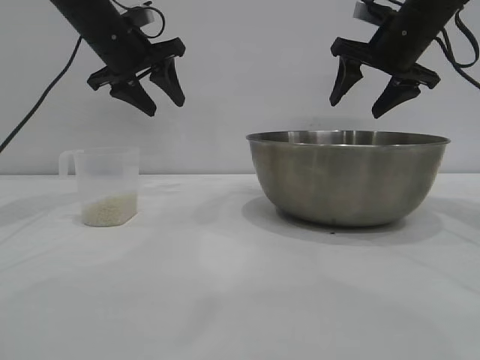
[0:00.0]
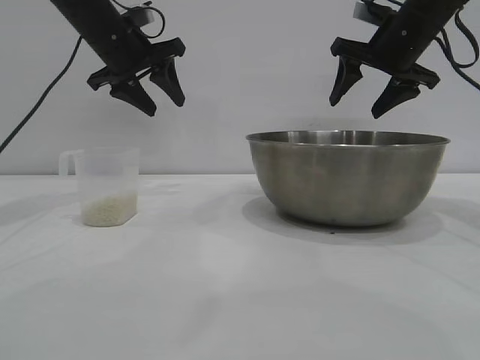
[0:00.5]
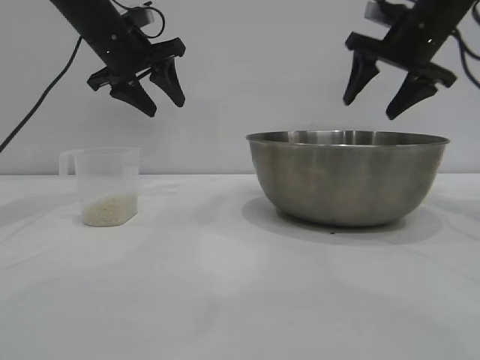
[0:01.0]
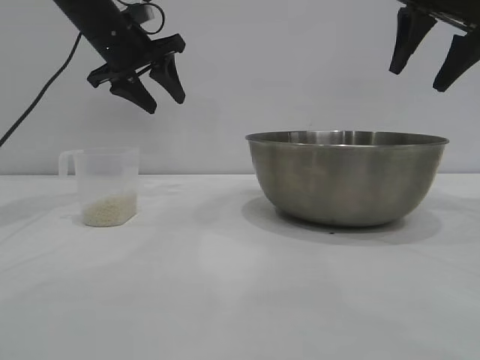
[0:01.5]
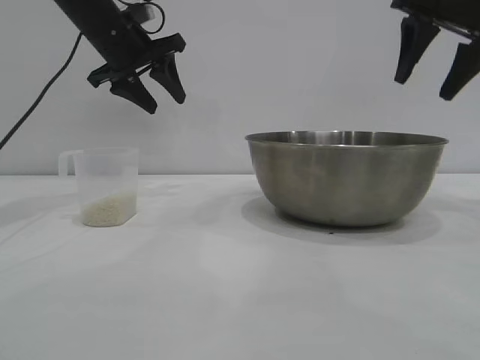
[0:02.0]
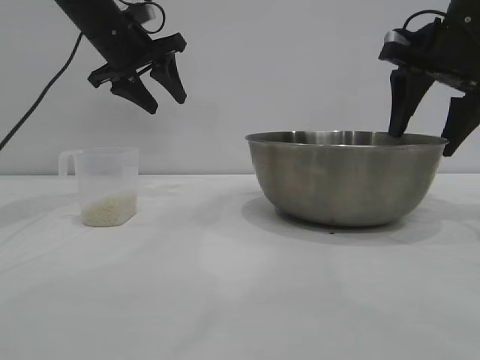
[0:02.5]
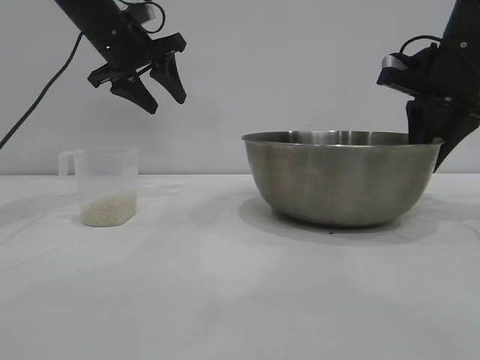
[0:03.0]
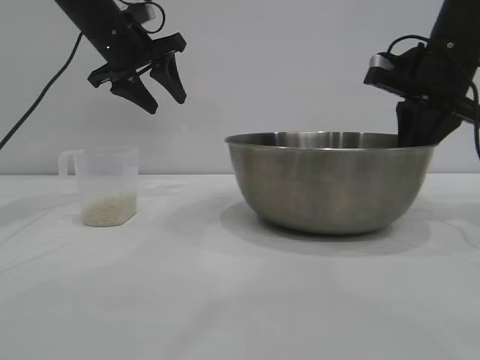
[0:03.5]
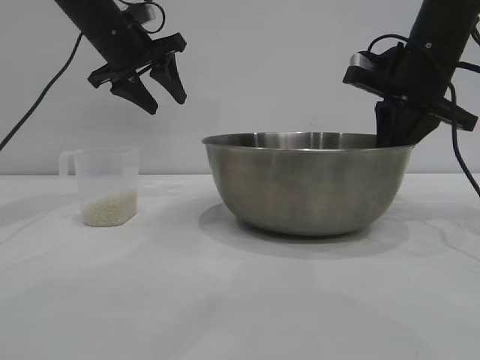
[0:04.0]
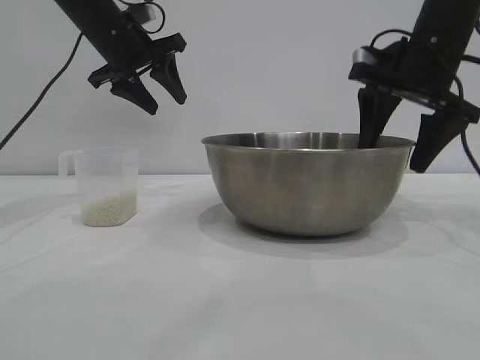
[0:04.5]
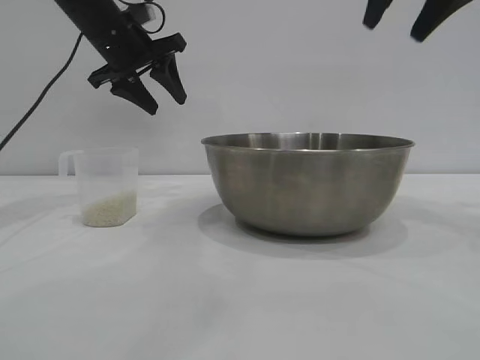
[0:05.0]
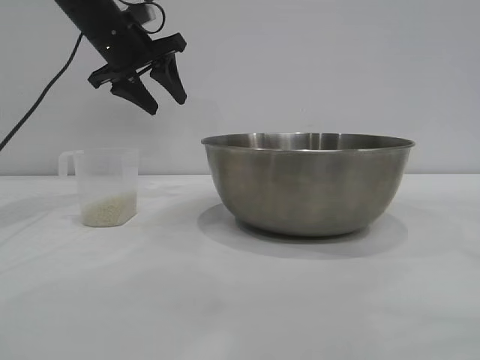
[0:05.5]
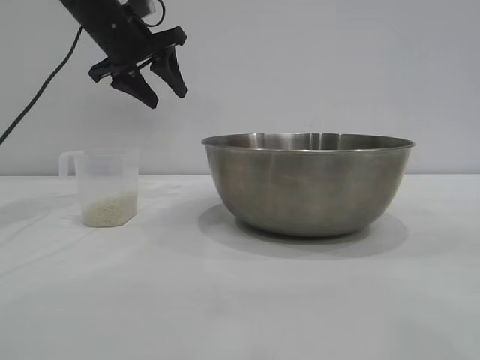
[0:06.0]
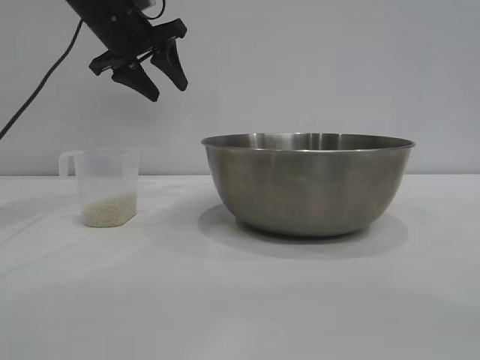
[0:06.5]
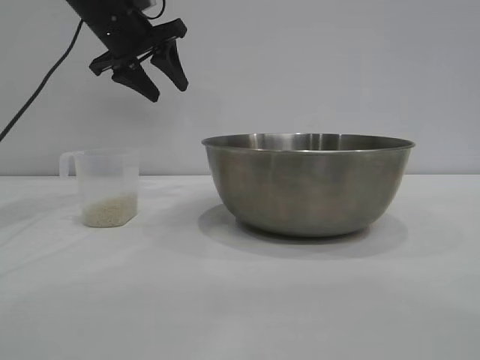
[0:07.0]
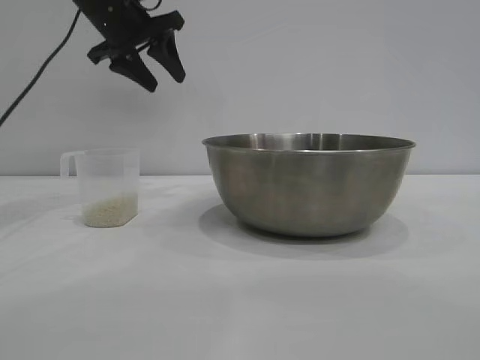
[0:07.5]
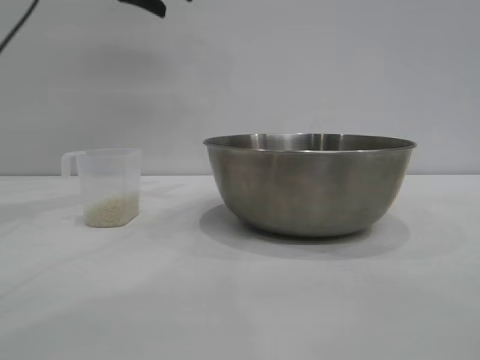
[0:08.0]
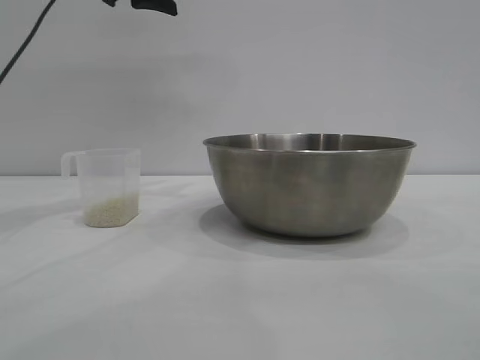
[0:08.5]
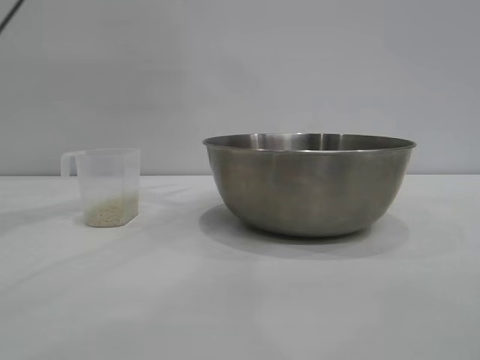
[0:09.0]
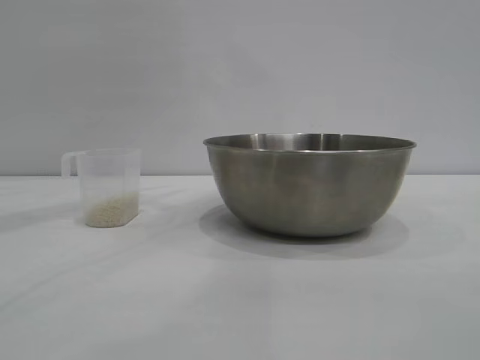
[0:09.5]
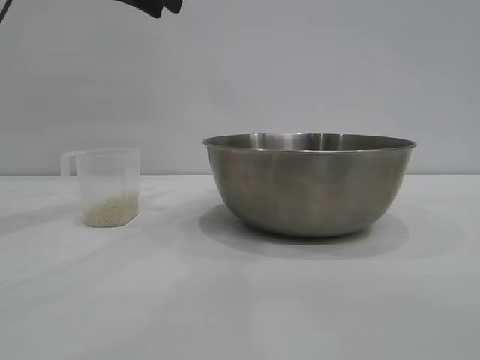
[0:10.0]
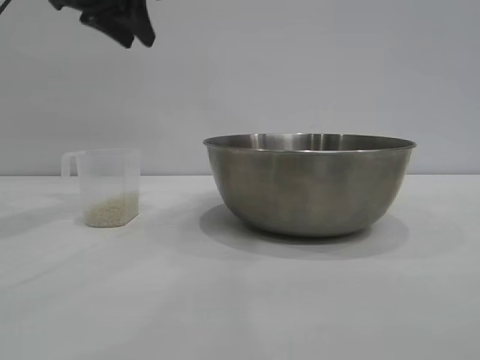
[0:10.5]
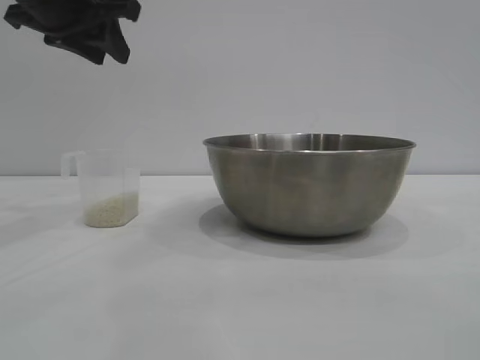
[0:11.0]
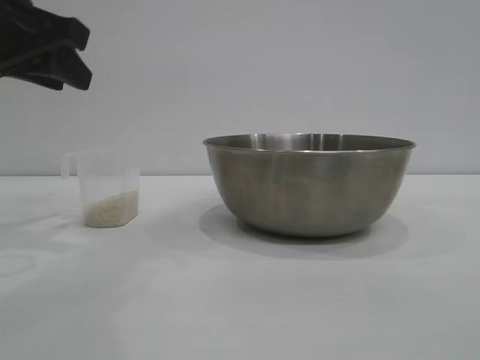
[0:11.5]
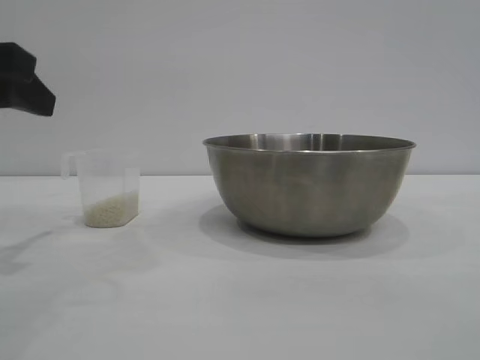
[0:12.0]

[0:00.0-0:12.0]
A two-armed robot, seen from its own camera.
Task of the whole recording: the right gripper grasp the rice container and place it in the center of the table, the left gripper grasp the rice scoop and pour the rice into the rice container.
Step, 0:00.0 to 0:04.5: Move the bowl to the center of view with the right gripper.

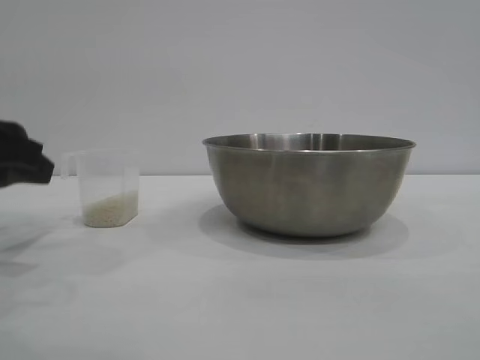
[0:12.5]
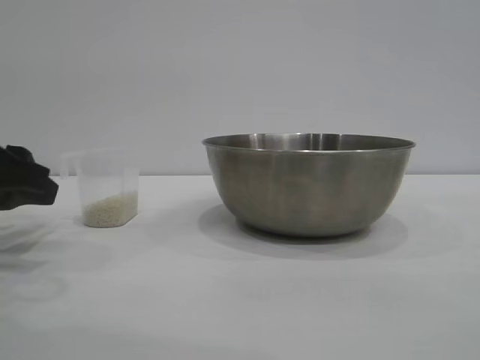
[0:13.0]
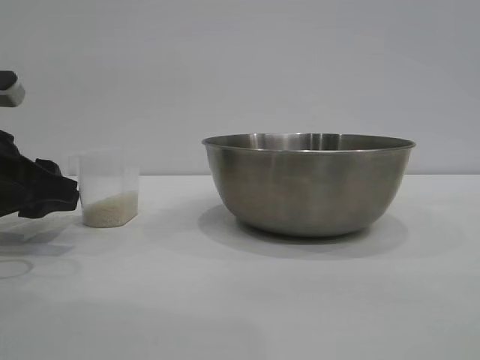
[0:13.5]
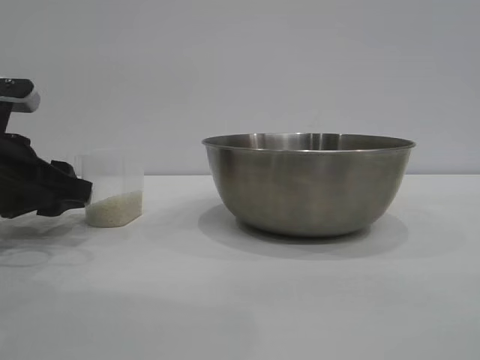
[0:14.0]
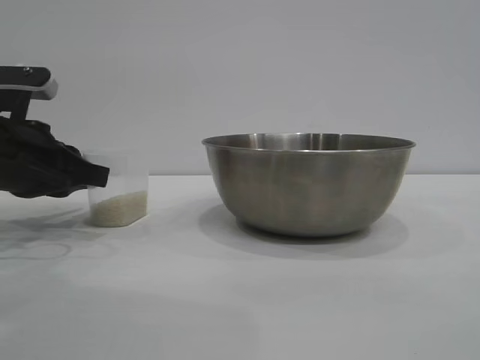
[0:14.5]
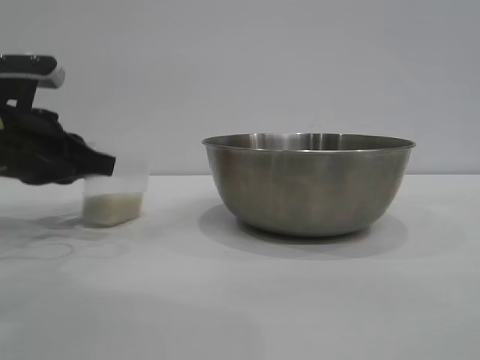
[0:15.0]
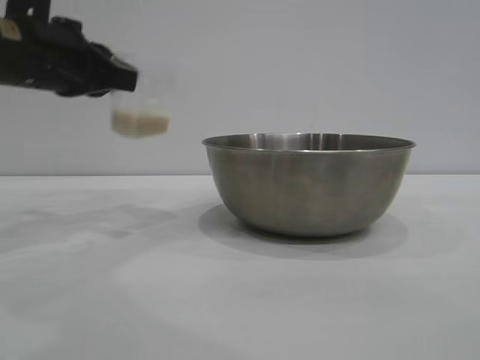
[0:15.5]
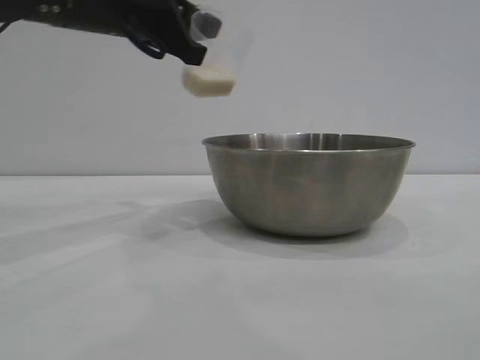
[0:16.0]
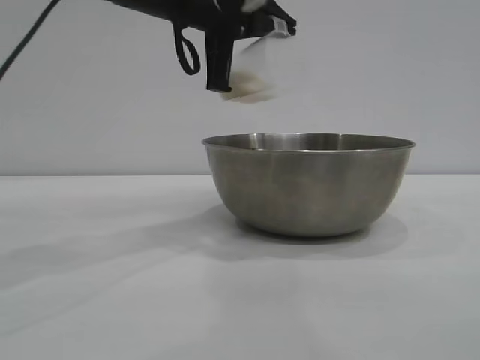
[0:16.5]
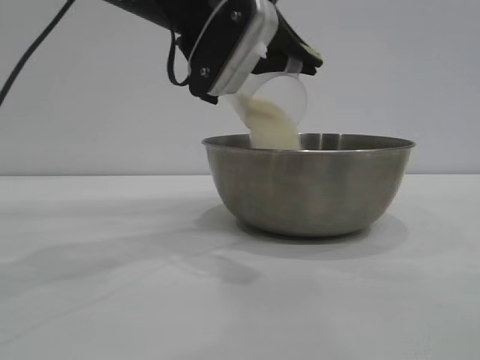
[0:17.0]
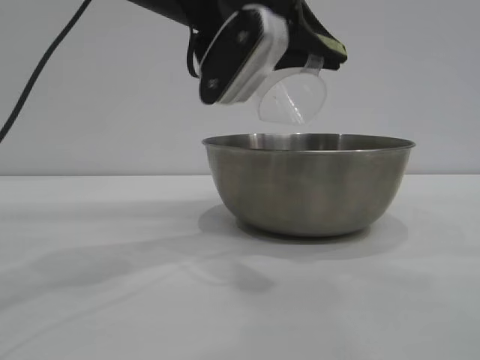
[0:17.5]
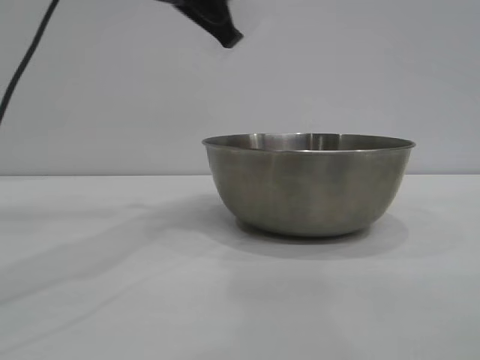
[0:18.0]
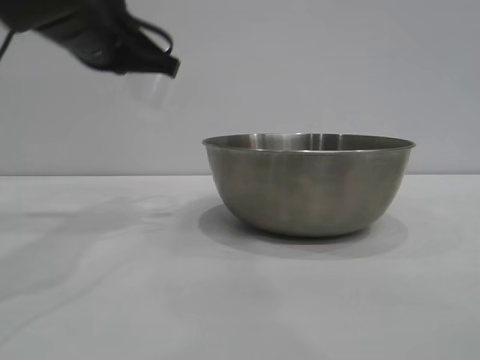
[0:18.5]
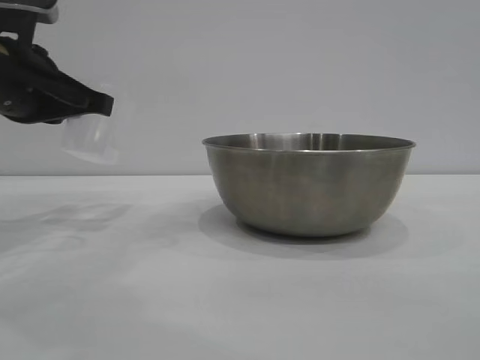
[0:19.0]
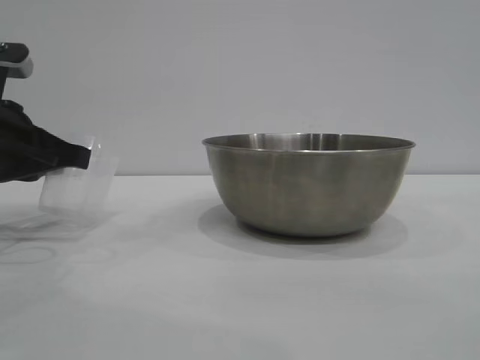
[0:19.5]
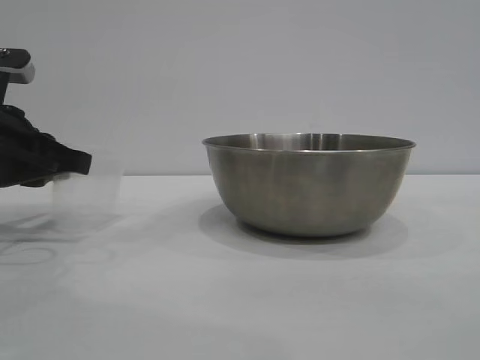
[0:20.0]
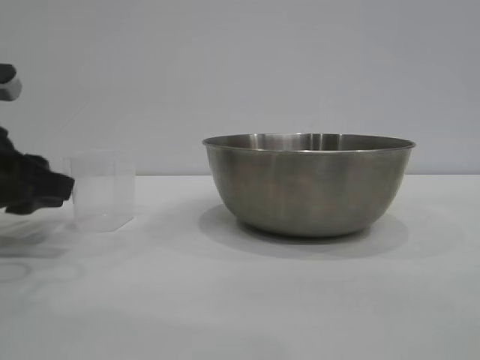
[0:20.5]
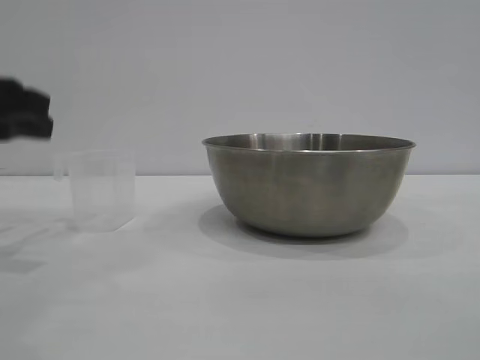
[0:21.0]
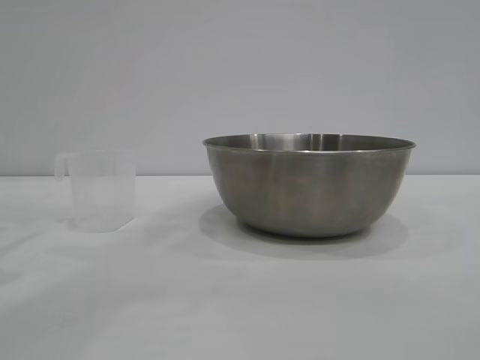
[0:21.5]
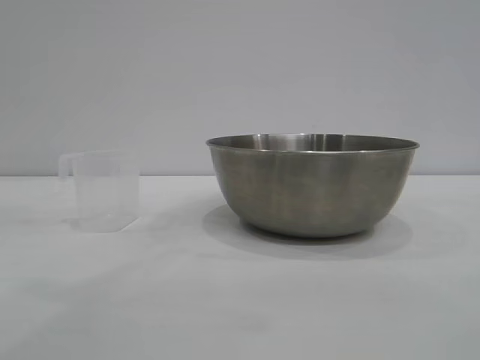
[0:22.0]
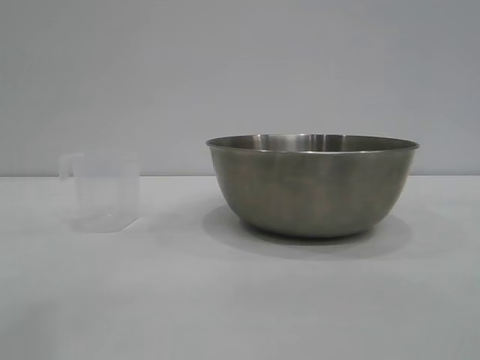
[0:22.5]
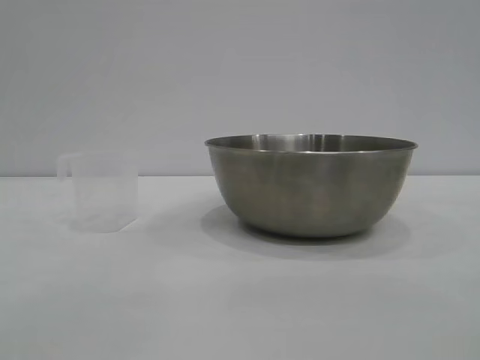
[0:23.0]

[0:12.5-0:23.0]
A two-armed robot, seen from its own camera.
Task of the whole recording: the right gripper grasp the rice container and place it in the center of the table, the left gripper grasp the rice scoop and pour the rice into the rice container.
Step, 0:12.5 to 0:15.0: Pick up the cup with rice in it with the left gripper.
Step, 0:15.5 to 0:17.5: Pour the rice from the cup into the bowl with the left gripper.
Step, 0:18.0 to 0:21.0: Place the cup on the table with the left gripper.
